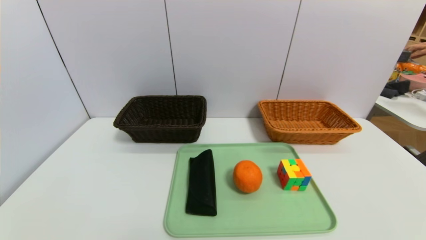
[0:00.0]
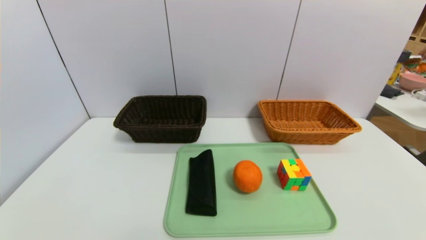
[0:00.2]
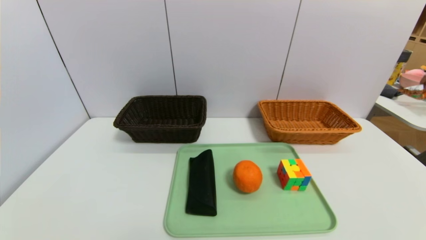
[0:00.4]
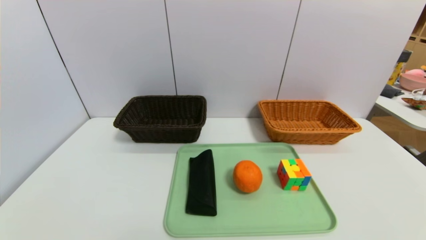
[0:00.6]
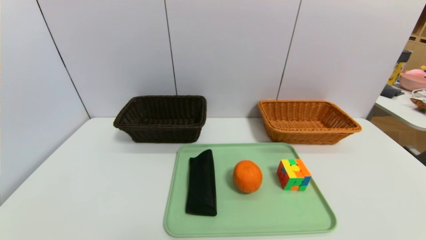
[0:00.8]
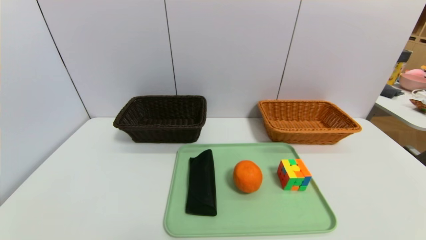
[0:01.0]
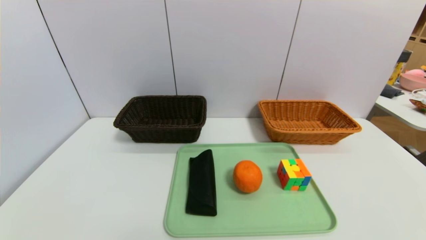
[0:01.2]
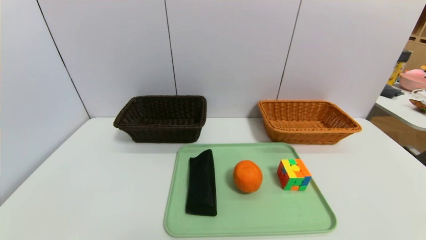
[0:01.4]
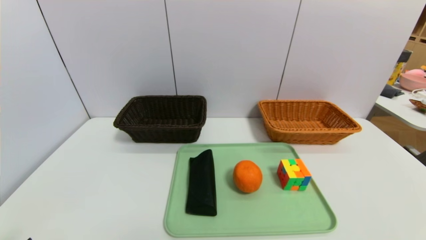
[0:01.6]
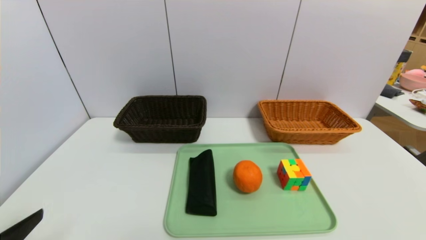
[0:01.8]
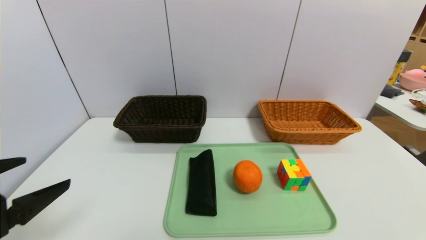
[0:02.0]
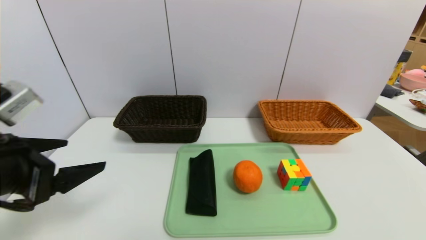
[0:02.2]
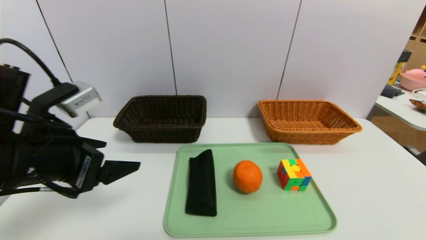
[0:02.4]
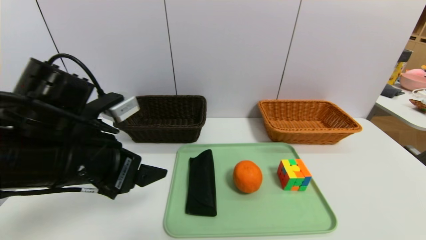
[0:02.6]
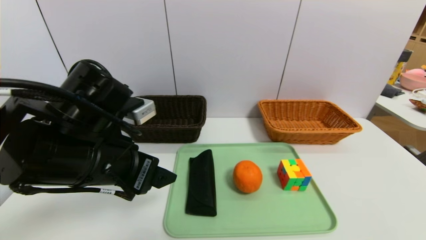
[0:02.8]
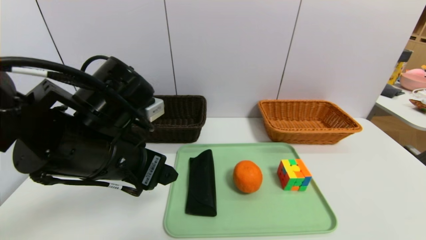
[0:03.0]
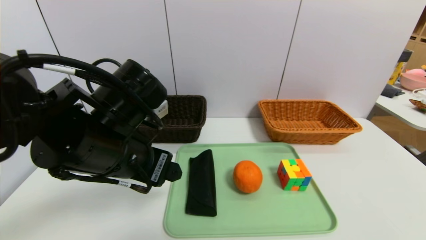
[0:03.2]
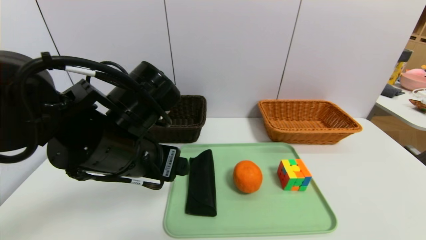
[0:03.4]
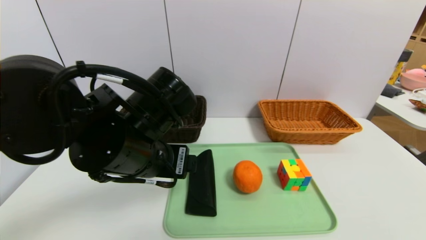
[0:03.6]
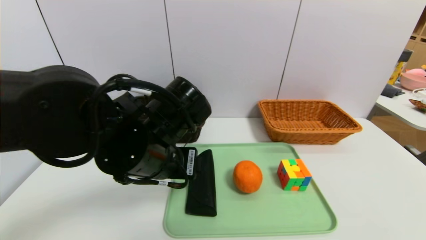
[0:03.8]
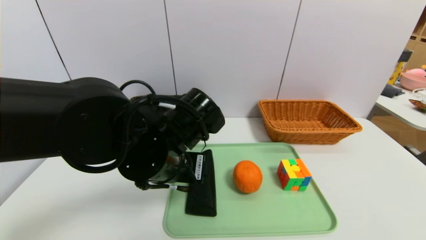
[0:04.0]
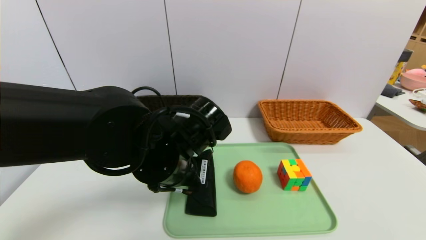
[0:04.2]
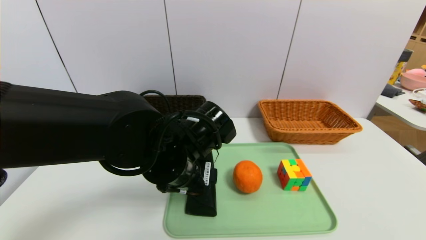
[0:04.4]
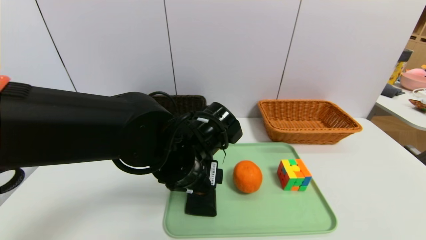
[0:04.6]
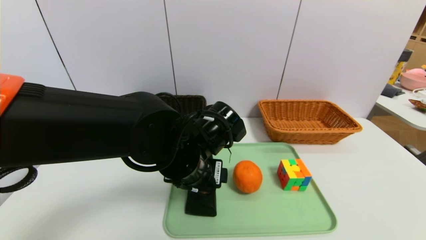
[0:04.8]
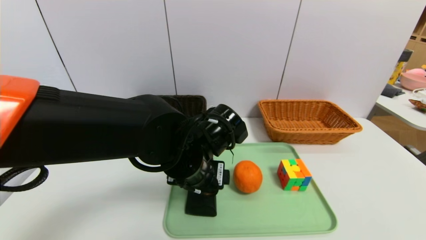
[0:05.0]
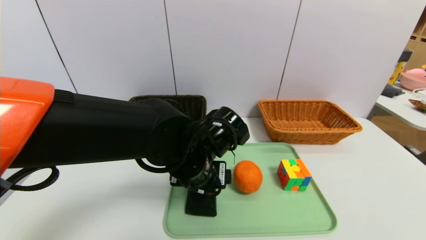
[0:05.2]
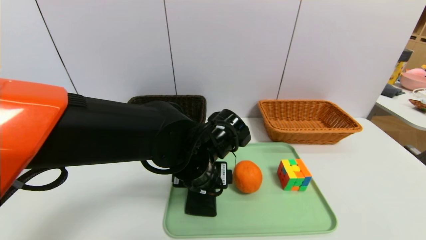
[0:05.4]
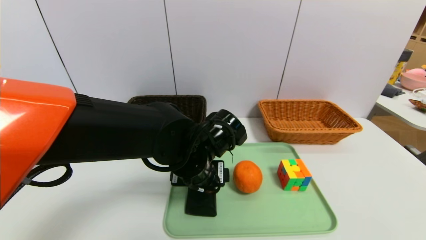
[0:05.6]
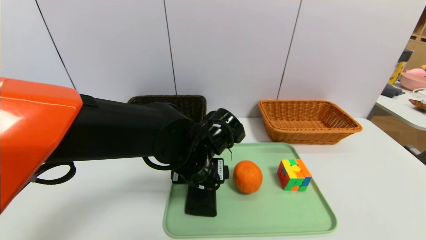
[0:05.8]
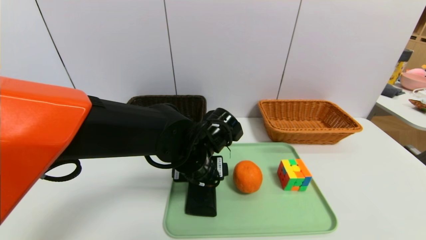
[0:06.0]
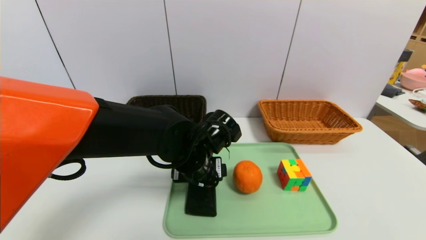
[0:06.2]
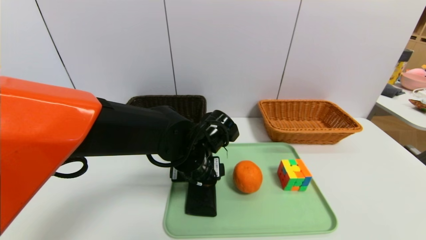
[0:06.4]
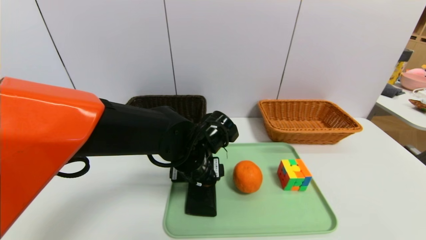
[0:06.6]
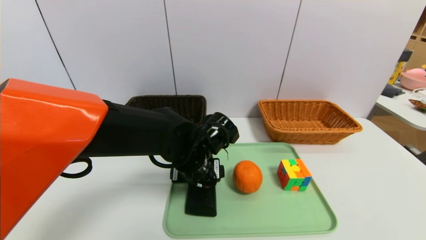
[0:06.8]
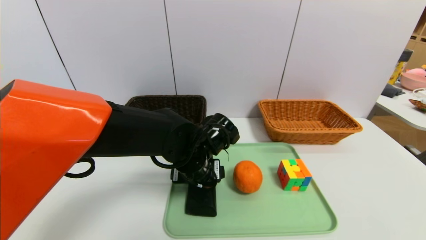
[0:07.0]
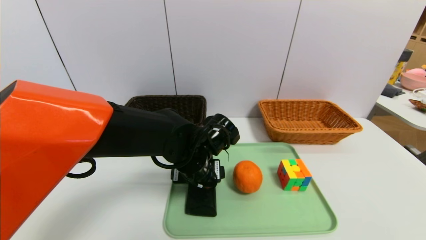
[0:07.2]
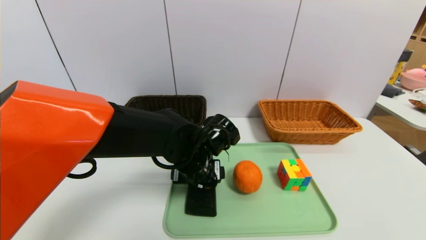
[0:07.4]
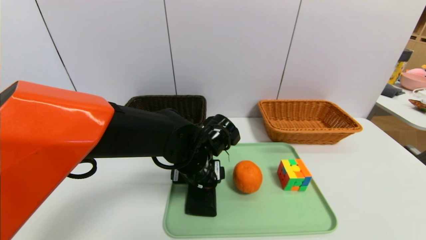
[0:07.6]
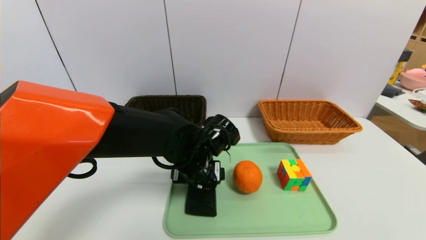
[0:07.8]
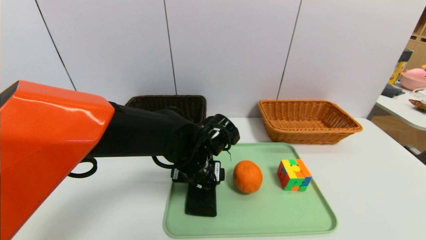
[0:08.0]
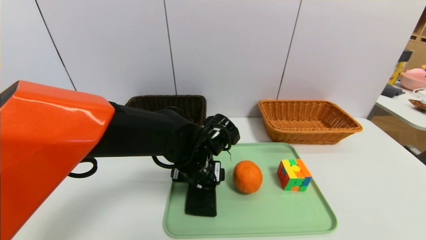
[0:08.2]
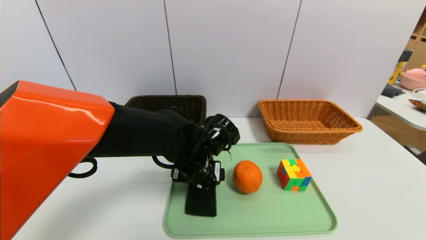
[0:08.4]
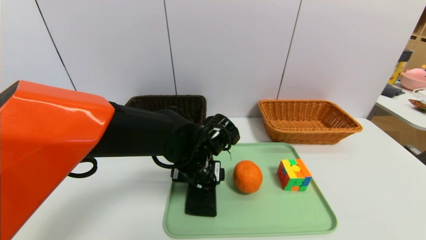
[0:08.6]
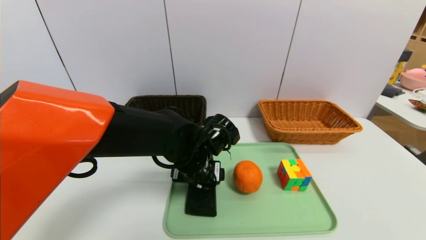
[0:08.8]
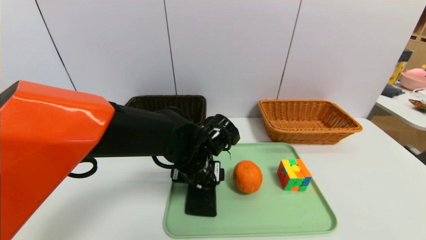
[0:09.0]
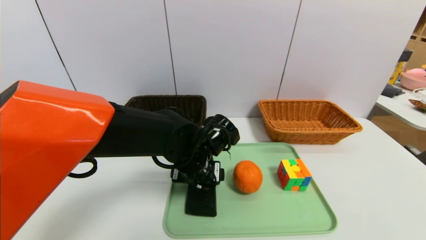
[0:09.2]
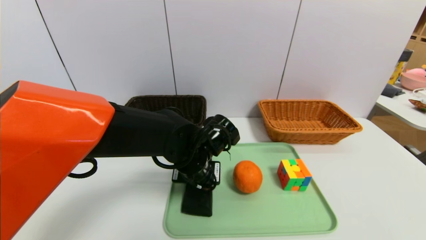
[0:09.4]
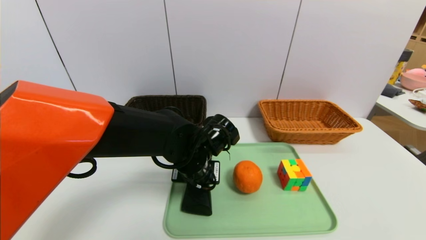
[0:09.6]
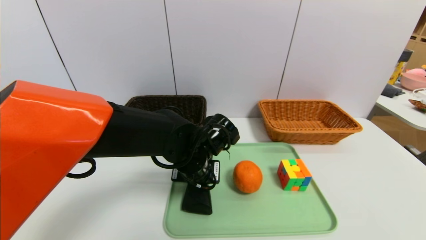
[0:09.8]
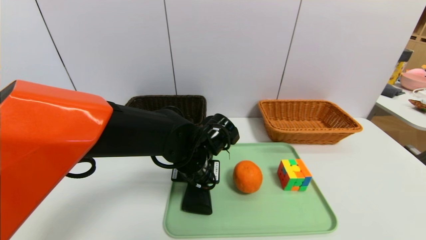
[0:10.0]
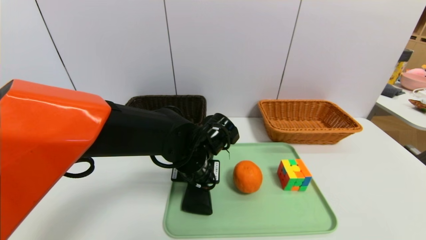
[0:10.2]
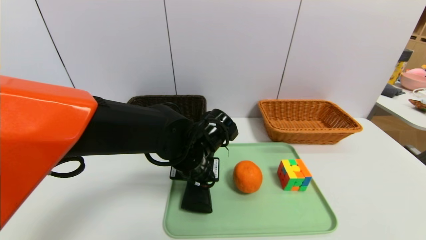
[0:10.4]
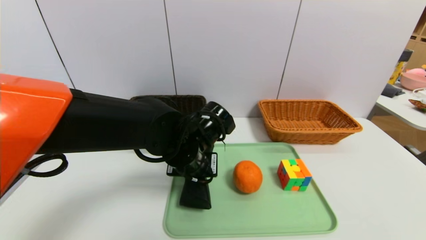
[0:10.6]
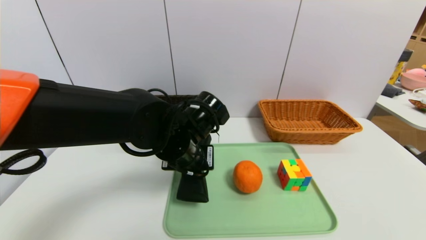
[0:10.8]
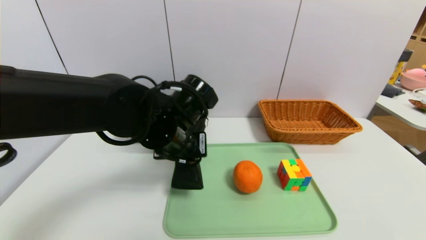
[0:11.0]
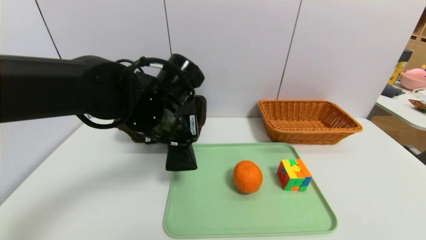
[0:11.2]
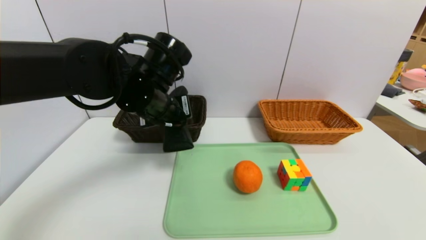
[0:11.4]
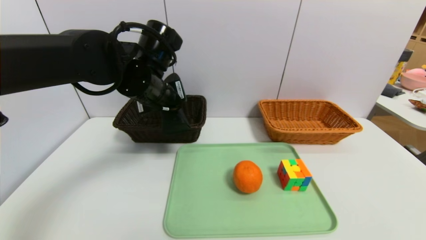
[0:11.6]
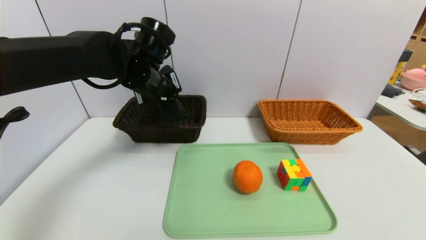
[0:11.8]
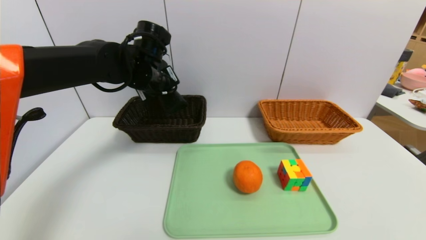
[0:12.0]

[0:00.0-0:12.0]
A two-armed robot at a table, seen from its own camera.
Task of the whole recording: place the food in the right basket with the right gripper, and place the non food items in the left basket with the left gripper.
0:01.6 to 0:03.0: The left gripper travels forward, to the right and upward by roughly 25 cm.
0:03.0 to 0:04.4: The left gripper heads to the right and downward, covering some 10 cm.
0:04.4 to 0:06.0: The left gripper changes place by approximately 5 cm.
0:06.0 to 0:07.6: There are only small adjustments of the grippers.
0:07.6 to 0:09.0: Neither gripper changes place.
0:09.0 to 0:10.4: The left gripper closes.
0:10.4 to 0:12.0: The left gripper heads forward, upward and to the left, covering about 20 cm.

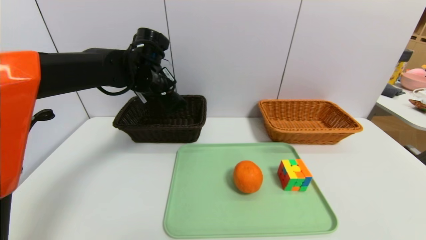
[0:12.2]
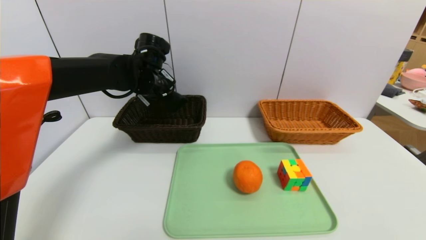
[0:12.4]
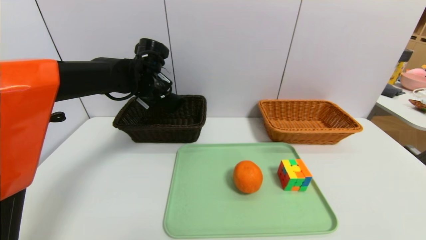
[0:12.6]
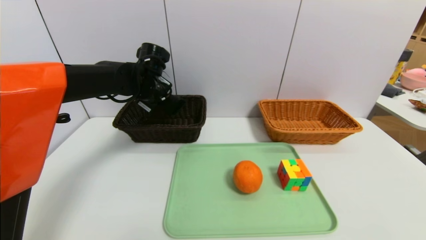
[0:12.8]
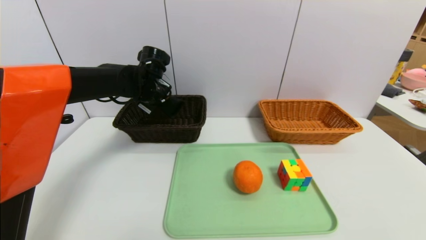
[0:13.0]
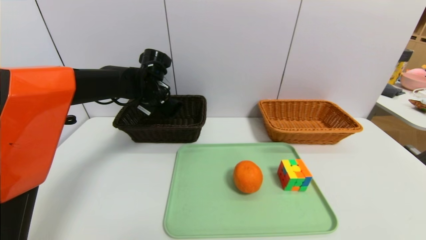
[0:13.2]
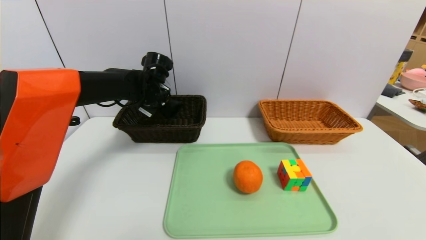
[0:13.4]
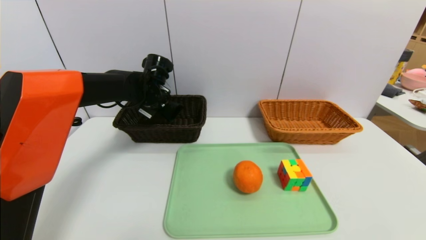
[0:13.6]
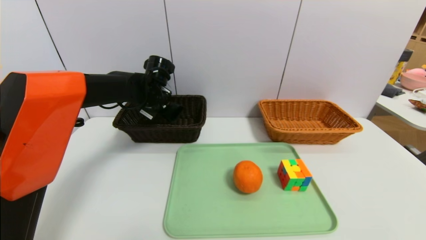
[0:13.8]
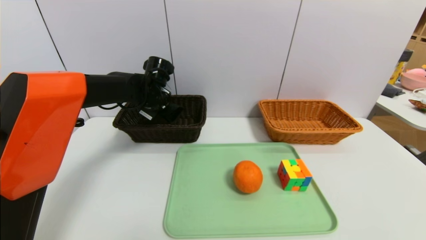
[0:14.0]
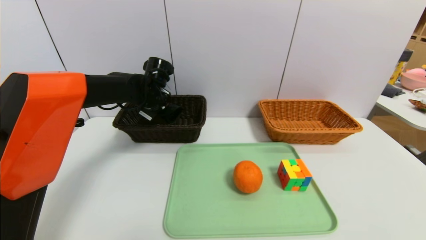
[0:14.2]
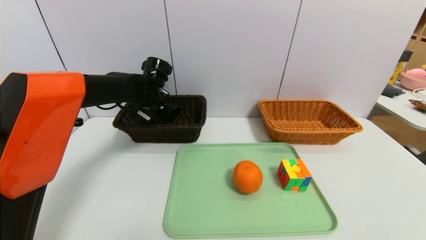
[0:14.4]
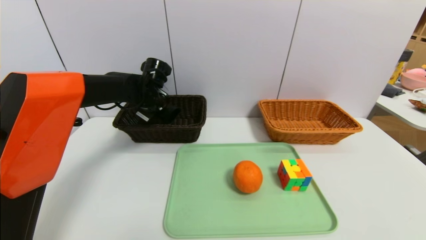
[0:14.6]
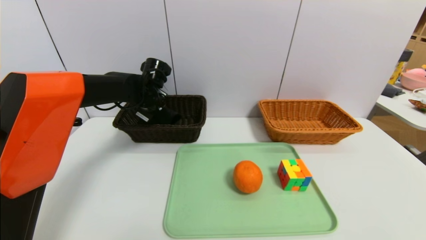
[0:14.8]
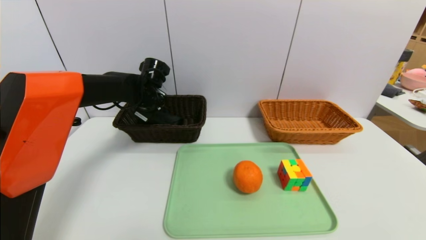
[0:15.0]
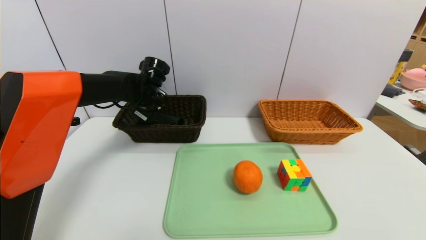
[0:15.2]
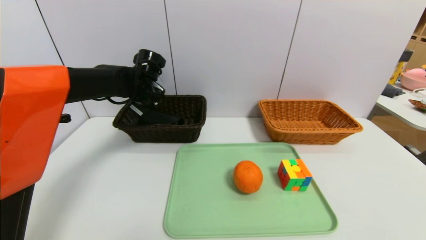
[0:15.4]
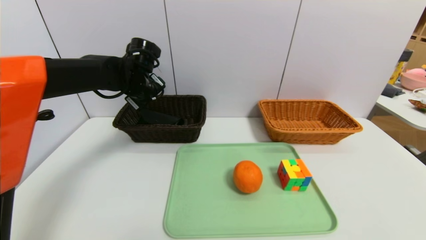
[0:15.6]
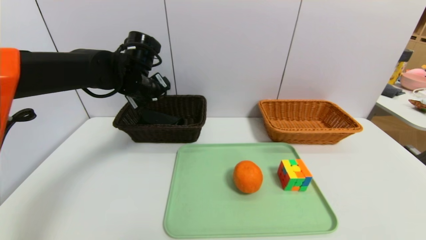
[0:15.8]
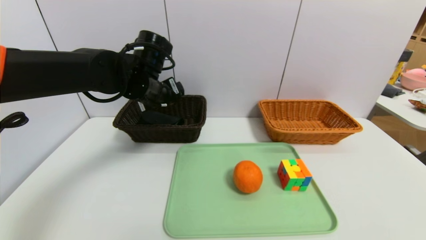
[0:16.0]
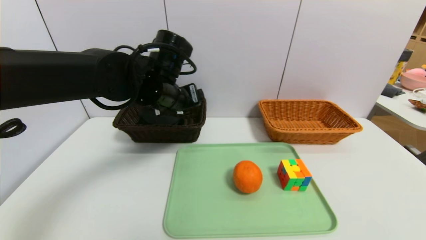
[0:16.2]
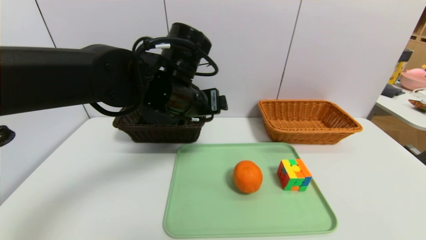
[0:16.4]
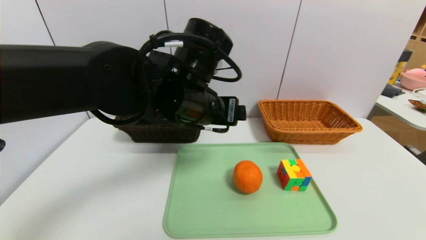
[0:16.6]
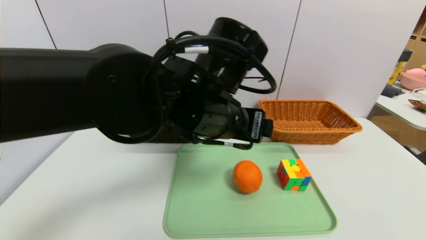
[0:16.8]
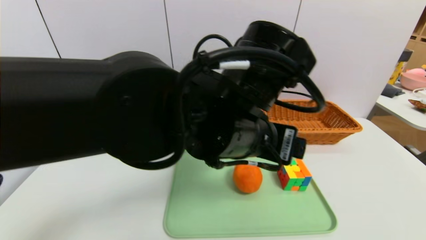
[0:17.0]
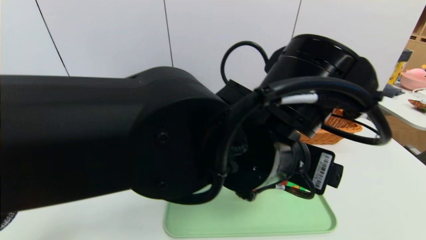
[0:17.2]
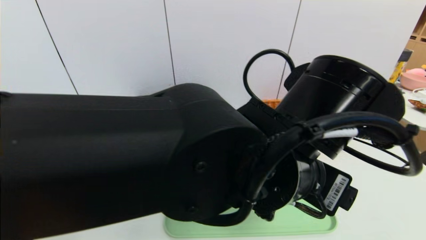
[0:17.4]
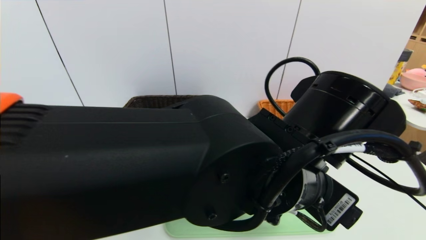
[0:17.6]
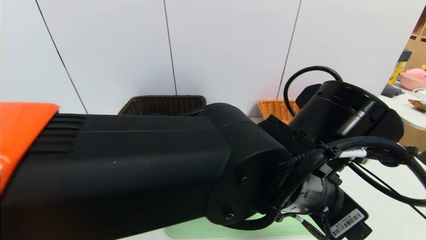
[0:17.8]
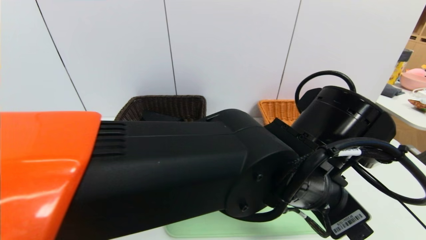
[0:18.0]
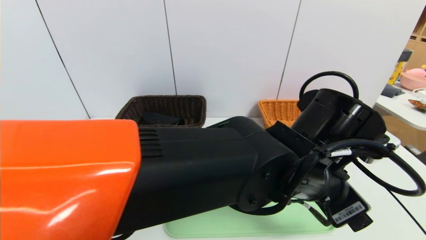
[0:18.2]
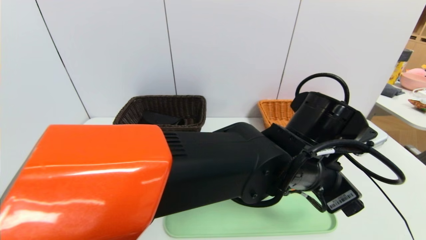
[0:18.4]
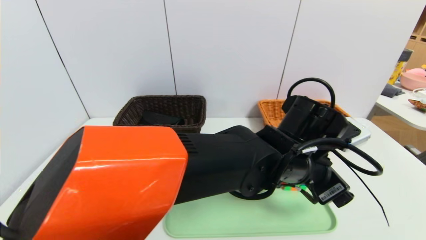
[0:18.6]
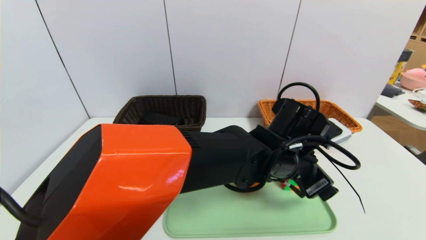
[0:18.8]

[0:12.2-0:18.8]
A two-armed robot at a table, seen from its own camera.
Task of the whole recording: place the food in the right basket with the right gripper, and place the non food items in the left basket with the left gripper.
Step, 0:12.2 to 0:15.0: Grasp the glasses case and put it in the left basket.
0:12.2 to 0:13.8: The left gripper moves downward, roughly 5 cm.
0:13.8 to 0:15.4: The left gripper opens up.
0:15.4 to 0:17.2: The left gripper shifts some 35 cm backward and to the right.
0:17.2 to 0:18.8: The left gripper moves downward, forward and to the right, some 15 cm.
